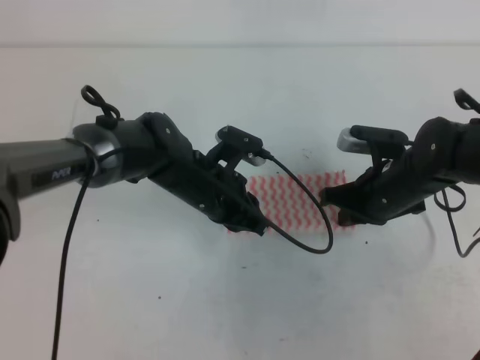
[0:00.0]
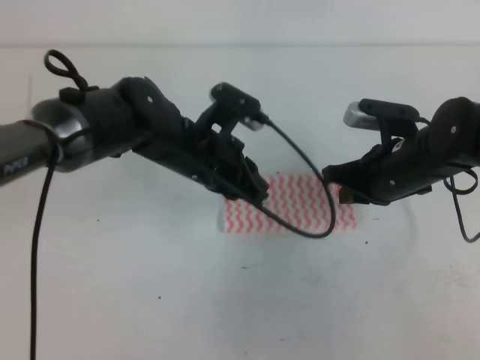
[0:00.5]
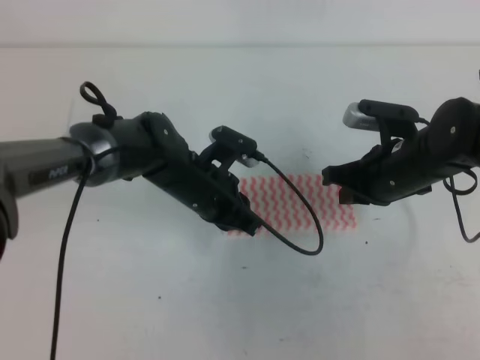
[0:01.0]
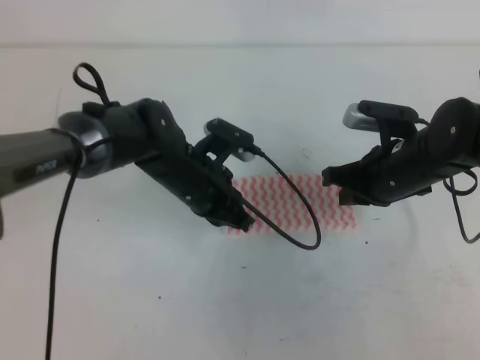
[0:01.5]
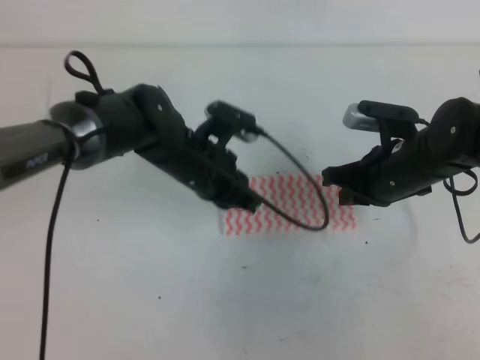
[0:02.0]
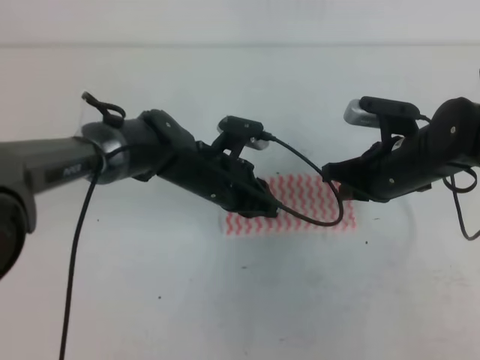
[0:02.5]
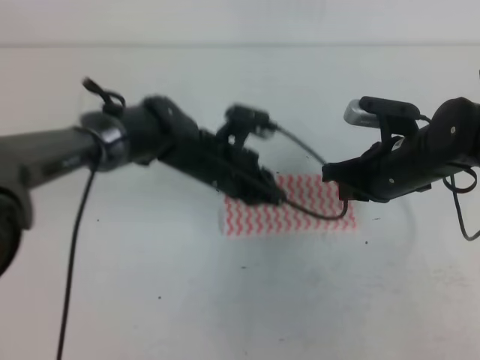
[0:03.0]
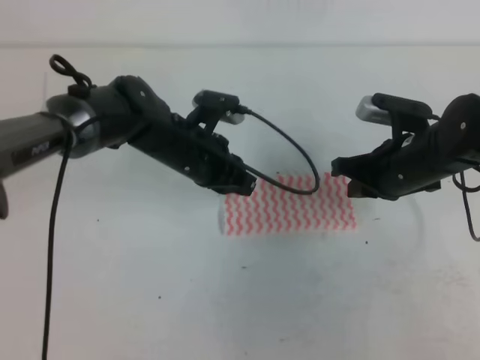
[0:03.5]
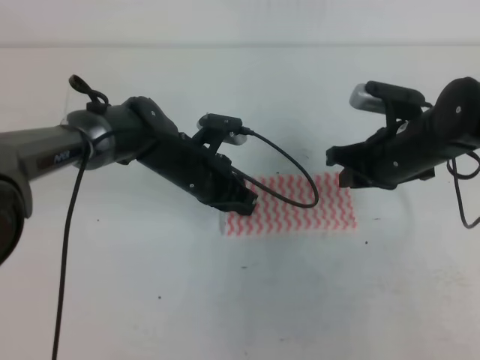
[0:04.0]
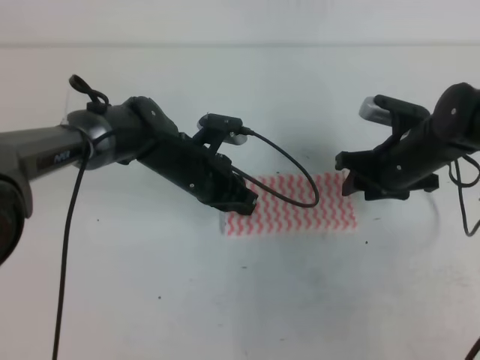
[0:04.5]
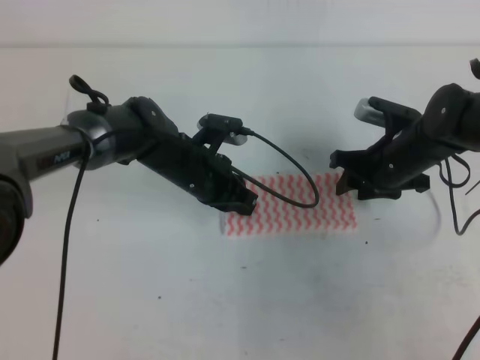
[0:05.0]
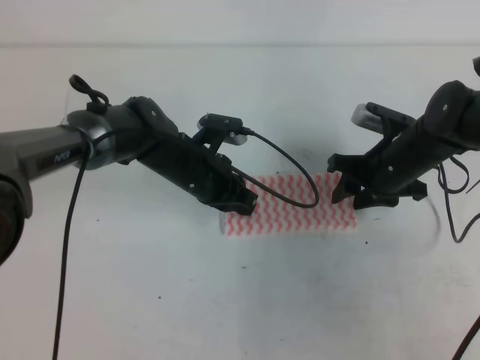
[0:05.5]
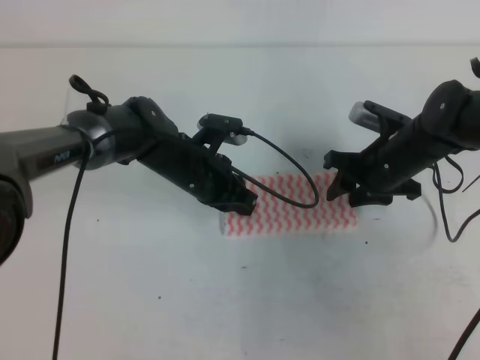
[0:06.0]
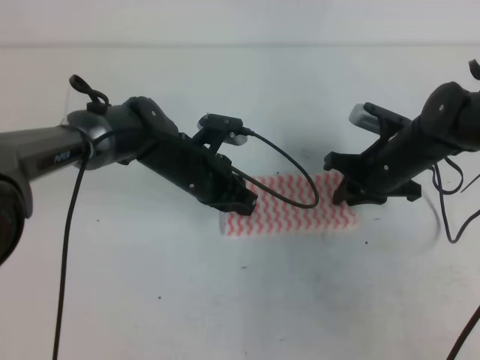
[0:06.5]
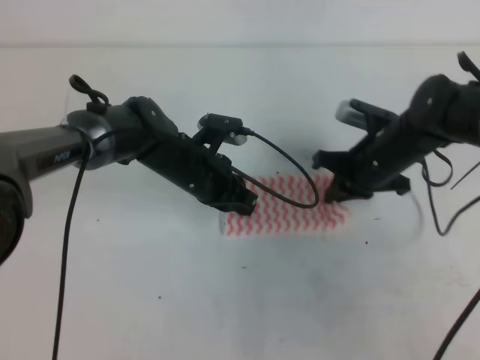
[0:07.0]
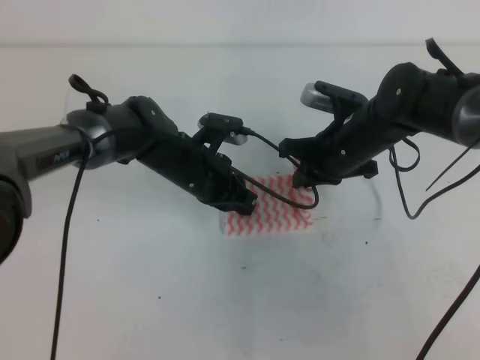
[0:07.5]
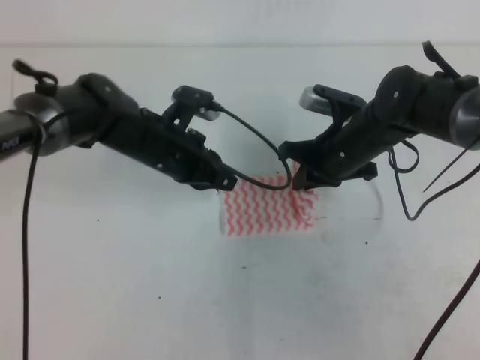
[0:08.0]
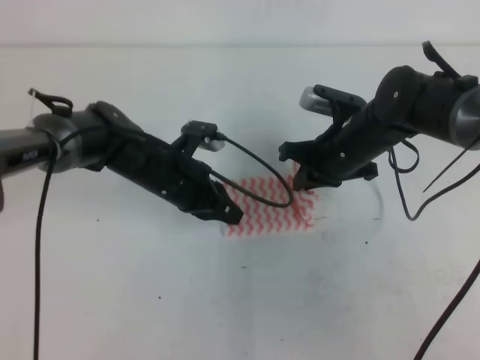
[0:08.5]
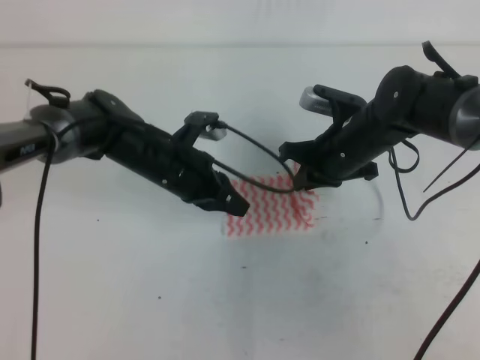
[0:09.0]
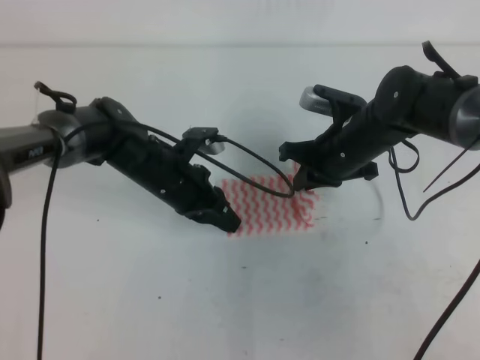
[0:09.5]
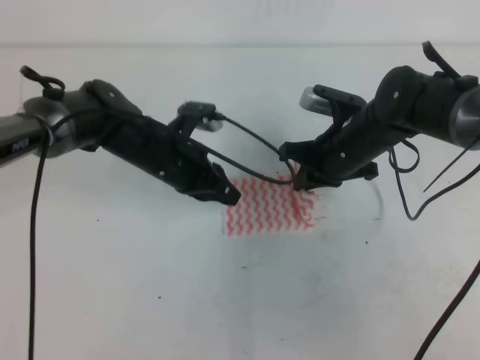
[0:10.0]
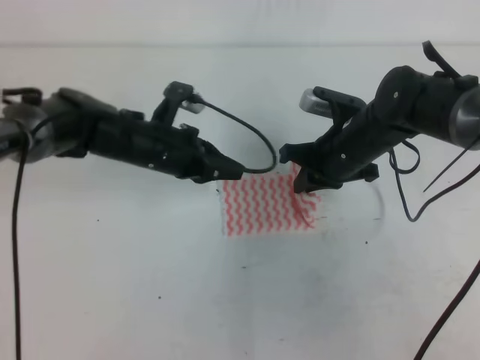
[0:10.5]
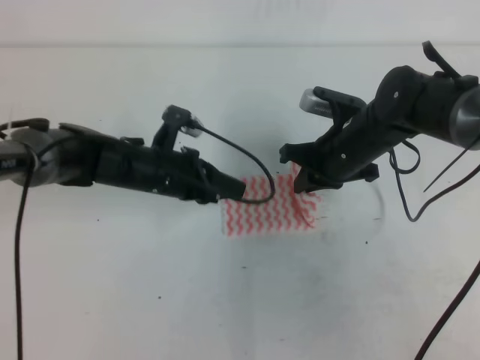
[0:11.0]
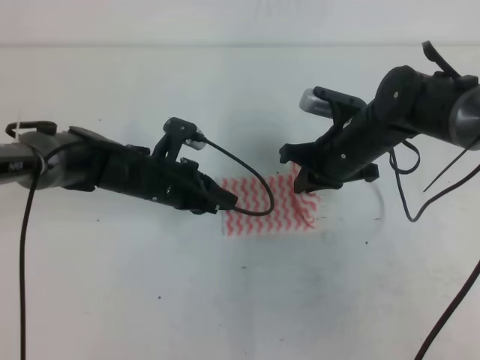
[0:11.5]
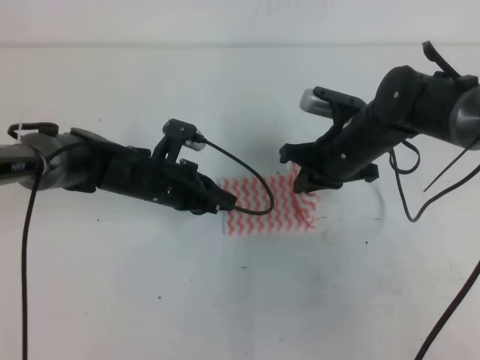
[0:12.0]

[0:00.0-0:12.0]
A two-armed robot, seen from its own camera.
Step, 0:01.0 to 0:09.5: Tidy up the towels.
0:02.0 to 0:04.0: The right gripper opens up.
0:04.0 to 0:06.0: The right gripper shifts roughly 5 cm downward, and opens its fingers.
0:06.0 to 0:08.0: The right gripper heads to the left, covering roughly 5 cm, and closes up.
0:08.0 to 0:10.0: The grippers stay close to where they were, moving slightly.

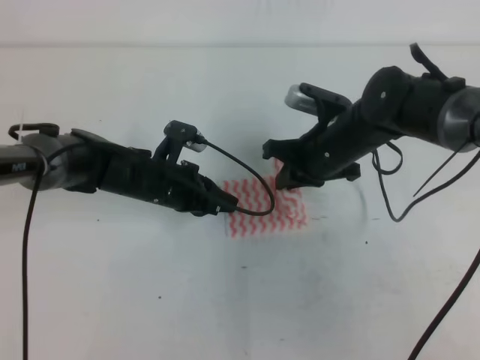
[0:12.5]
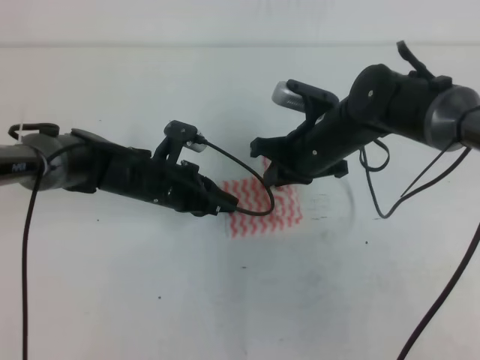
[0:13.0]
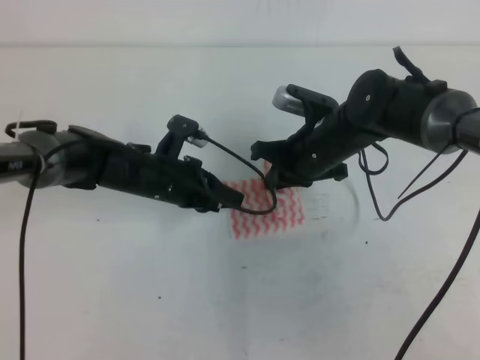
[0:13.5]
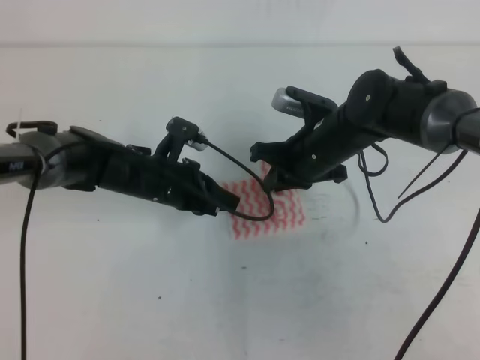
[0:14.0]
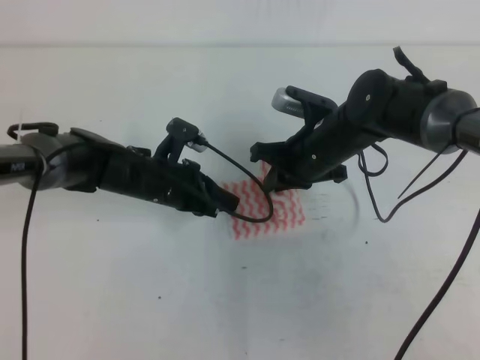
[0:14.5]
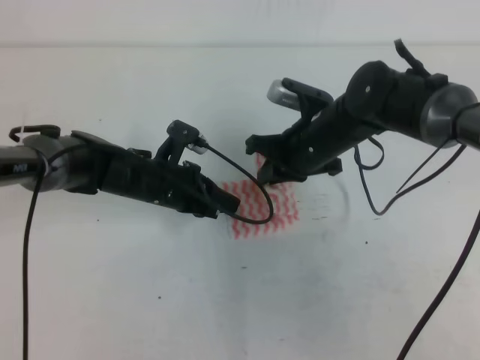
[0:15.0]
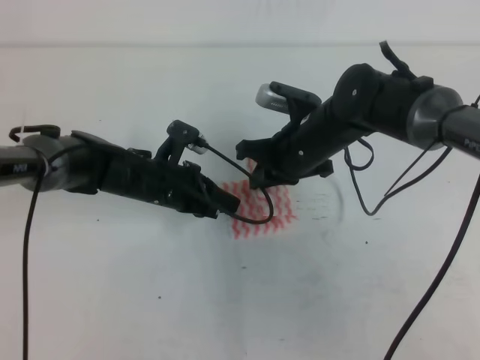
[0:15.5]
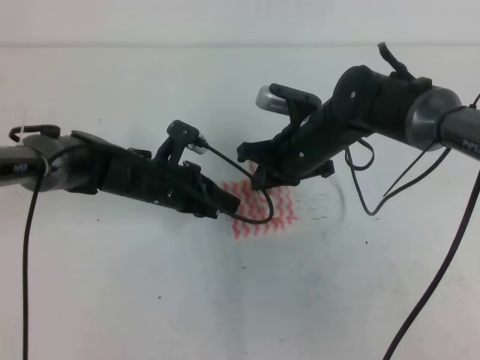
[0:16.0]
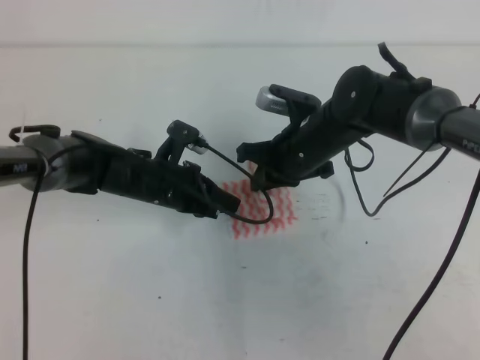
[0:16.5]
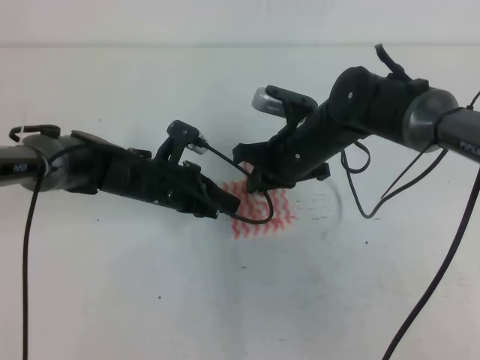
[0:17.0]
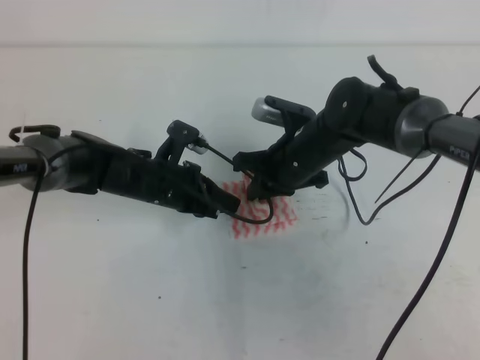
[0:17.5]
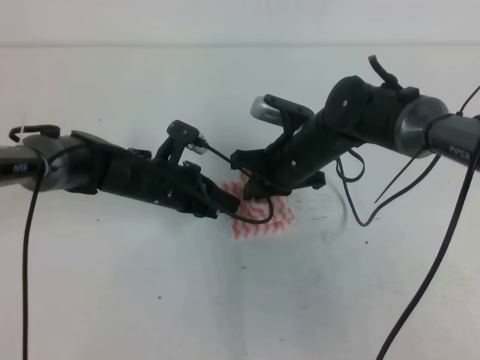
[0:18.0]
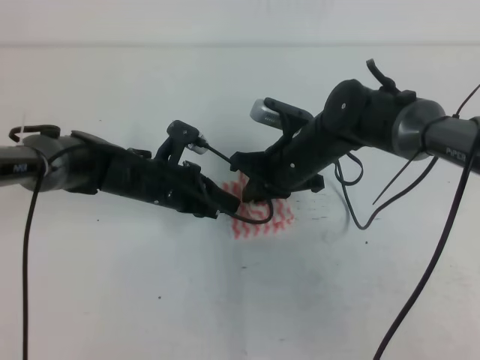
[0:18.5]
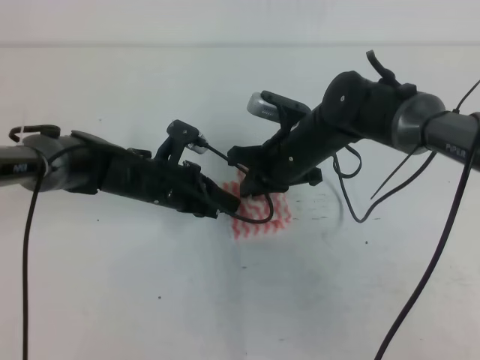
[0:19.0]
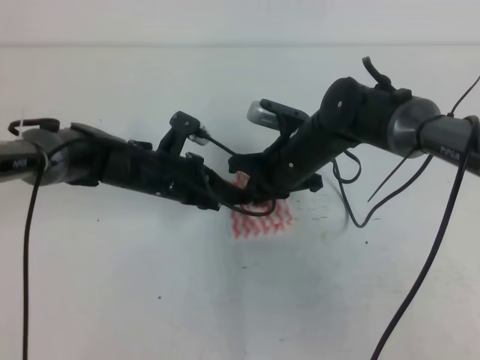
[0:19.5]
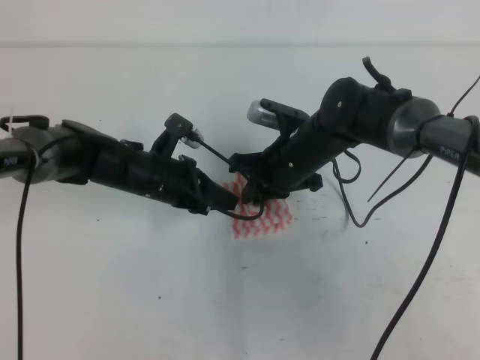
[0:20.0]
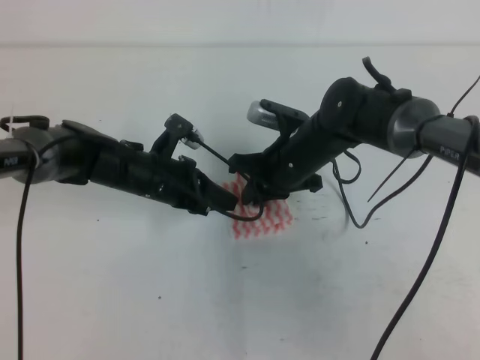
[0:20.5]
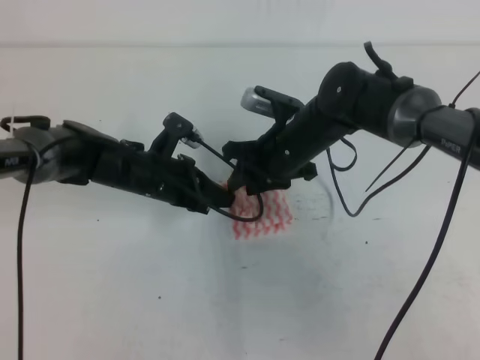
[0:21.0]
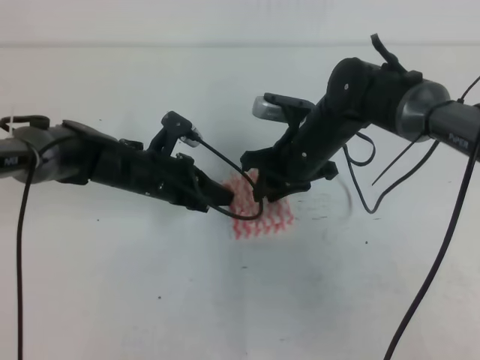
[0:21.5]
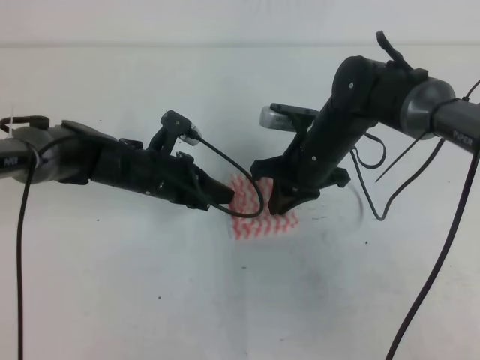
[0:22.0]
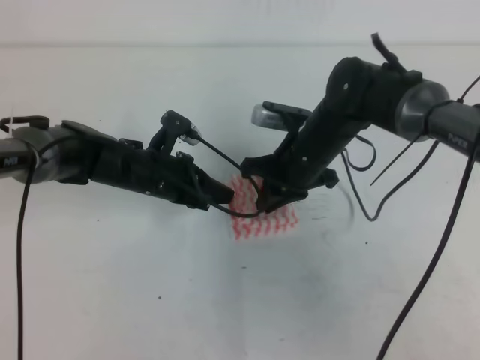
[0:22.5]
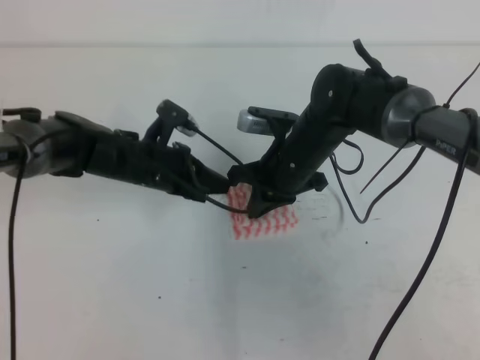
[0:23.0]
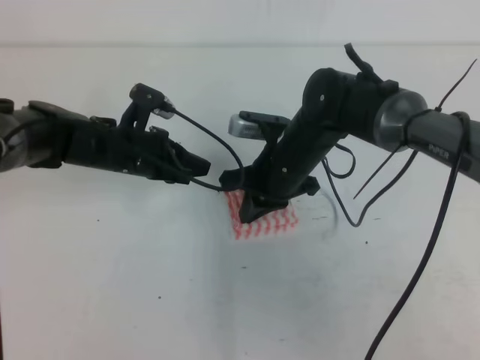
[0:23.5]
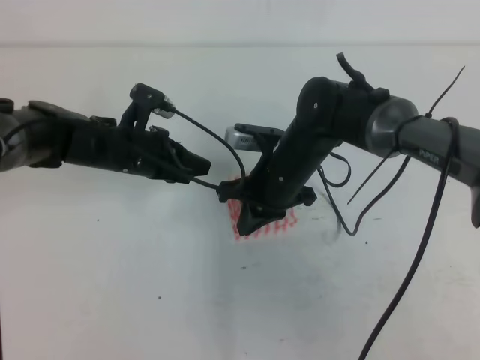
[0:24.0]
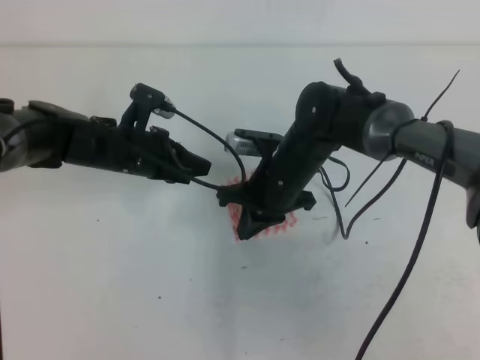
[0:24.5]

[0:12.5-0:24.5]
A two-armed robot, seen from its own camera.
0:12.5 to 0:20.5: The grippers make only small movements.
0:20.5 to 0:22.5: The right gripper opens, then closes once more.

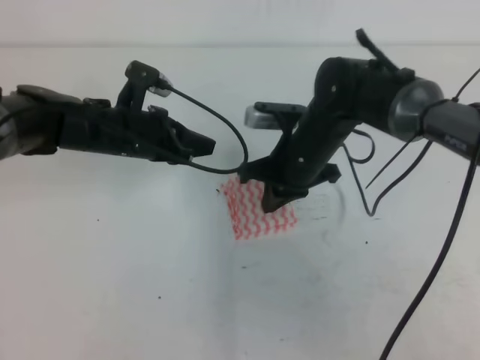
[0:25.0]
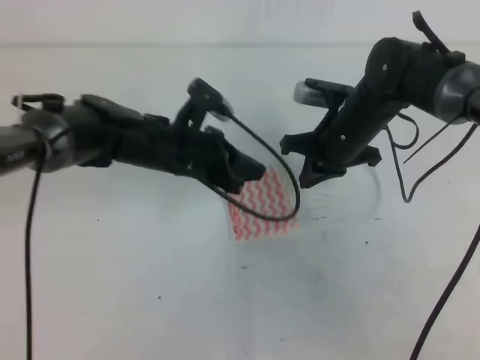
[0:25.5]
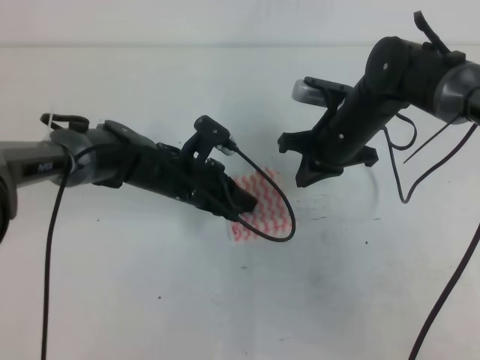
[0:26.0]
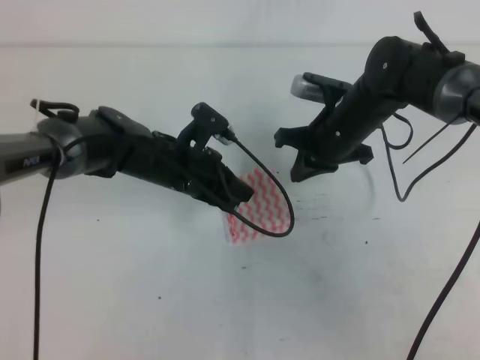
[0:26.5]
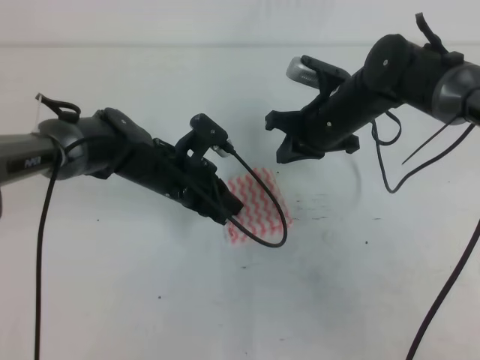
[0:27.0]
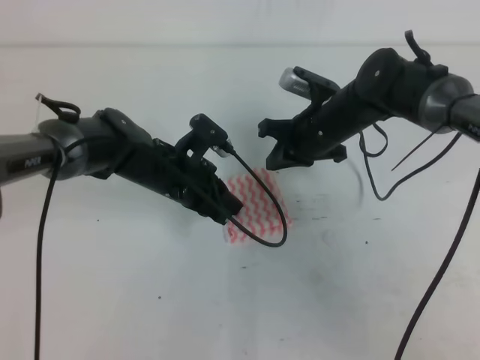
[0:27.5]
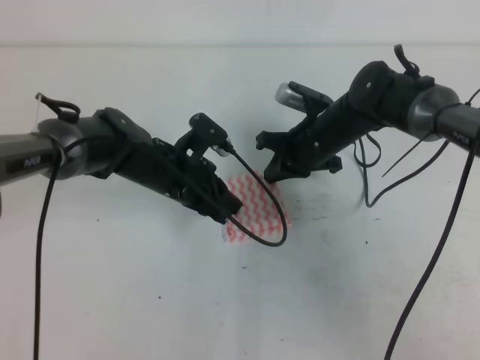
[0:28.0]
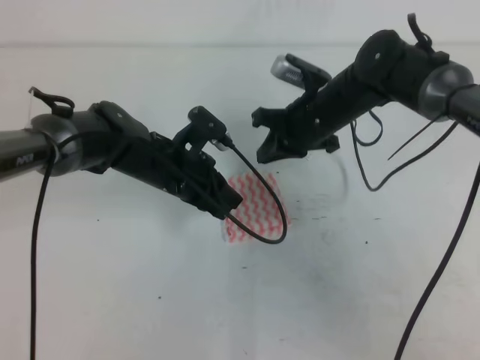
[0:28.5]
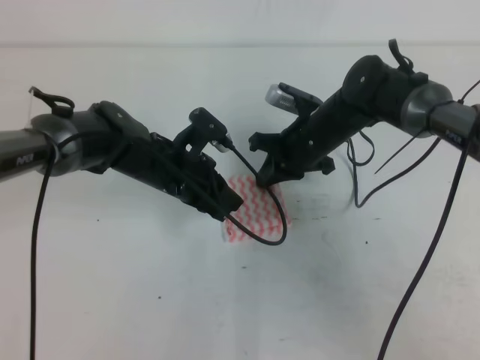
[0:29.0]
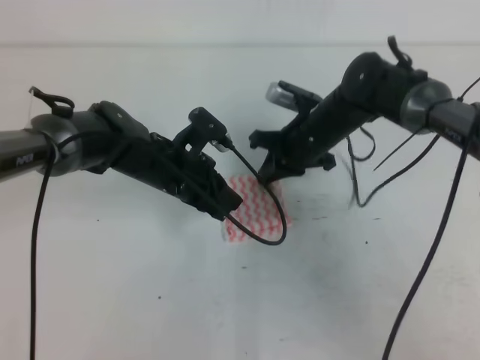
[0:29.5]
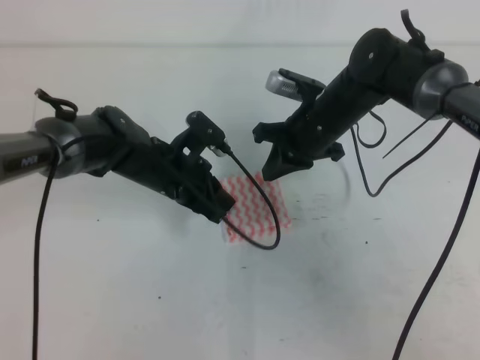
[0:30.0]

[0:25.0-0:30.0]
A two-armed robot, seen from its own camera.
0:25.0 to 0:27.5: The left gripper travels to the right by roughly 5 cm. Meanwhile the right gripper is displaced forward by some 5 cm.
0:27.5 to 0:30.0: There are only small adjustments of the grippers.
